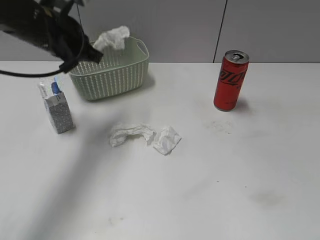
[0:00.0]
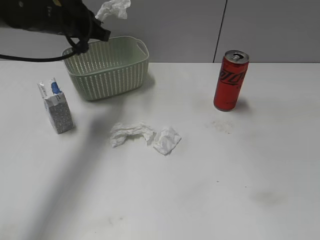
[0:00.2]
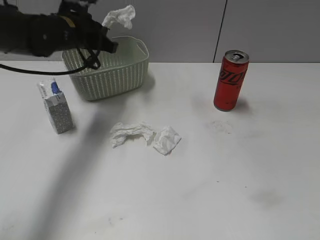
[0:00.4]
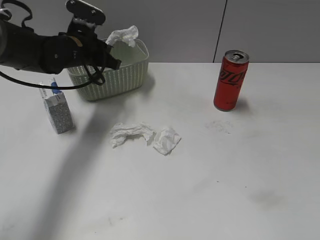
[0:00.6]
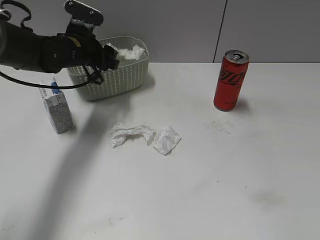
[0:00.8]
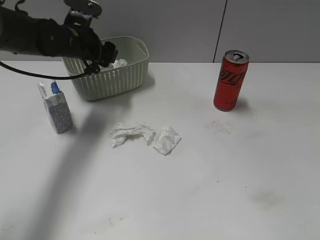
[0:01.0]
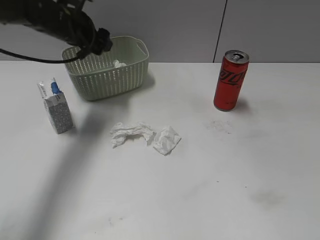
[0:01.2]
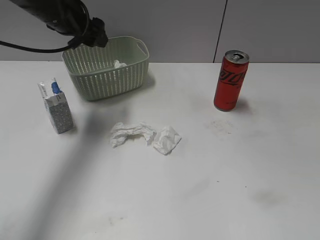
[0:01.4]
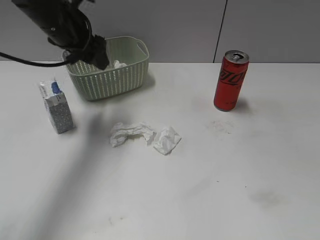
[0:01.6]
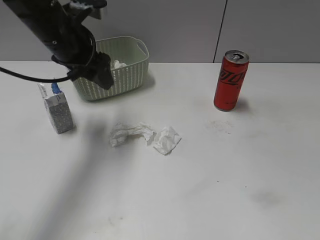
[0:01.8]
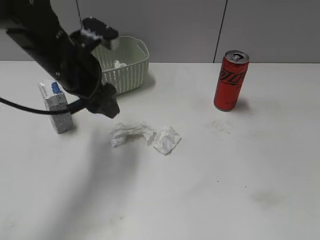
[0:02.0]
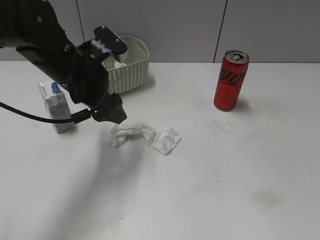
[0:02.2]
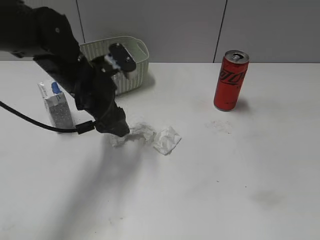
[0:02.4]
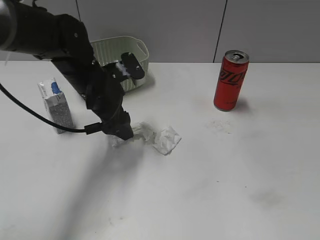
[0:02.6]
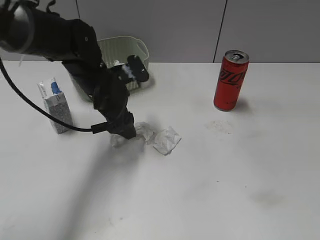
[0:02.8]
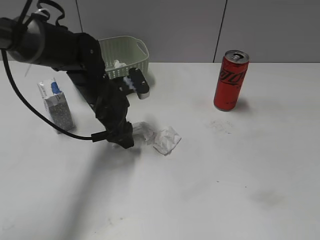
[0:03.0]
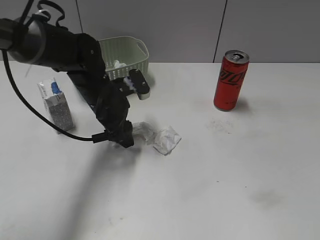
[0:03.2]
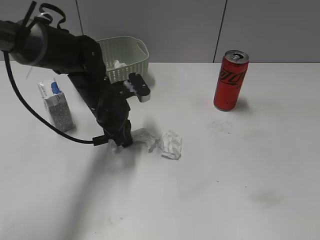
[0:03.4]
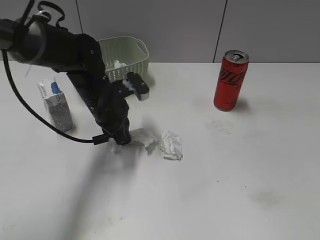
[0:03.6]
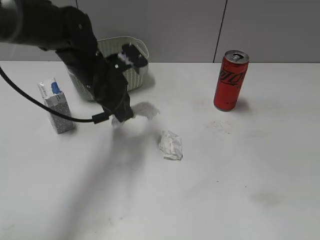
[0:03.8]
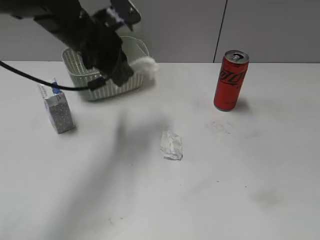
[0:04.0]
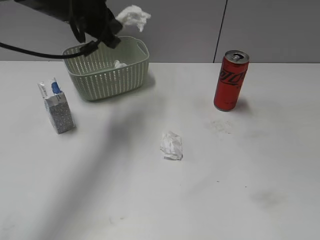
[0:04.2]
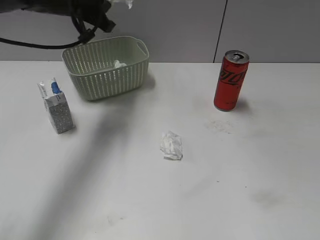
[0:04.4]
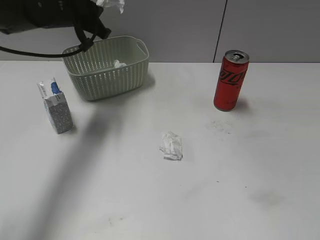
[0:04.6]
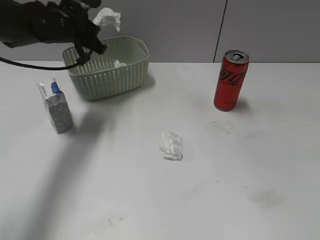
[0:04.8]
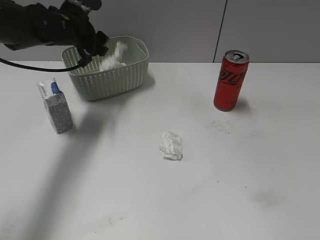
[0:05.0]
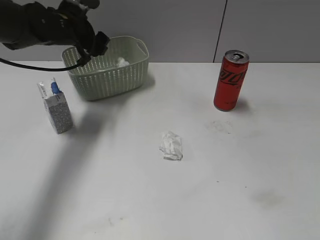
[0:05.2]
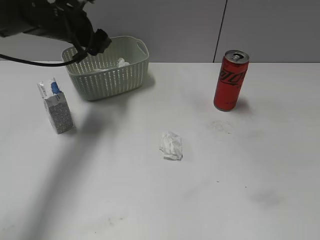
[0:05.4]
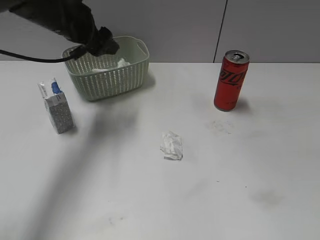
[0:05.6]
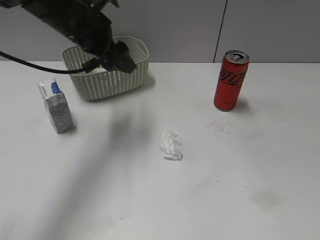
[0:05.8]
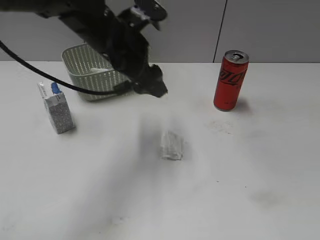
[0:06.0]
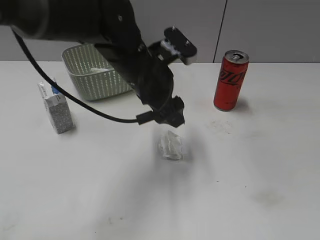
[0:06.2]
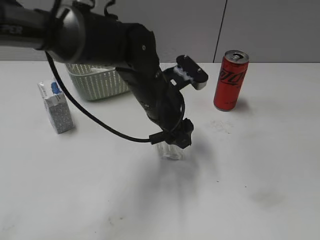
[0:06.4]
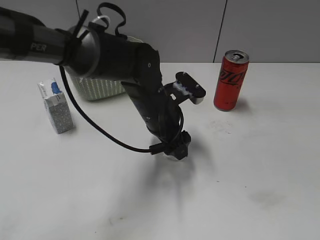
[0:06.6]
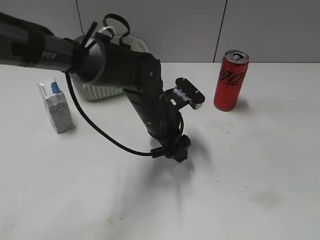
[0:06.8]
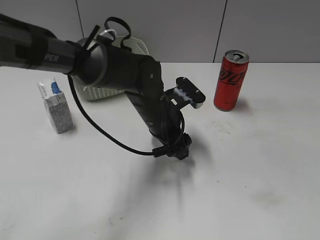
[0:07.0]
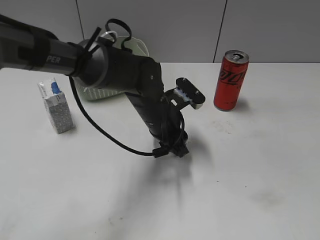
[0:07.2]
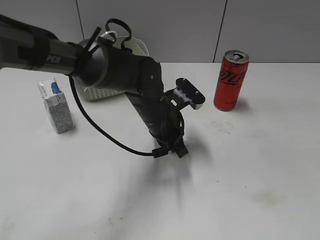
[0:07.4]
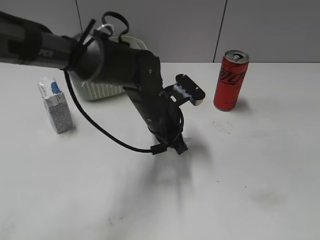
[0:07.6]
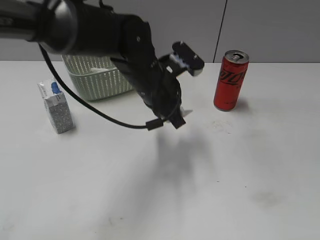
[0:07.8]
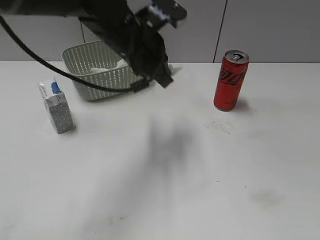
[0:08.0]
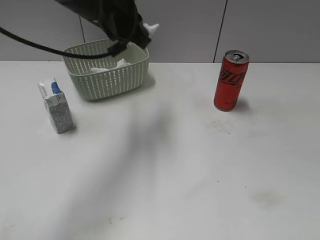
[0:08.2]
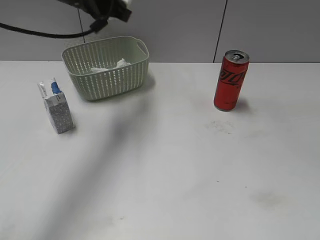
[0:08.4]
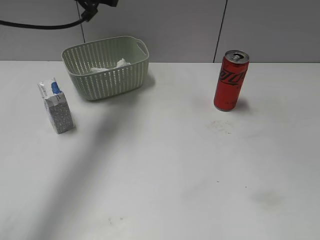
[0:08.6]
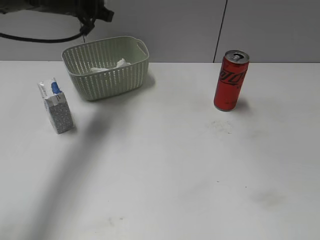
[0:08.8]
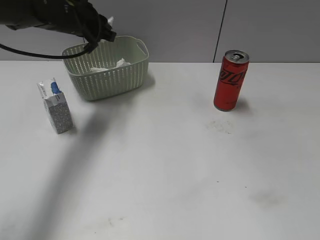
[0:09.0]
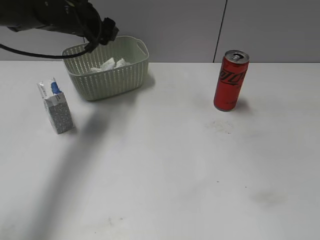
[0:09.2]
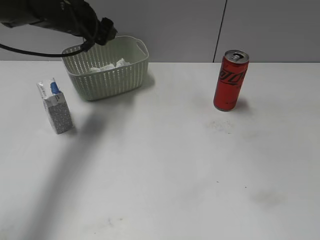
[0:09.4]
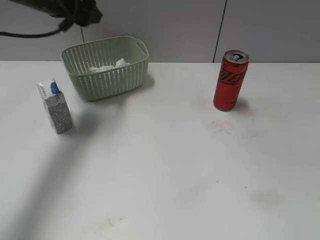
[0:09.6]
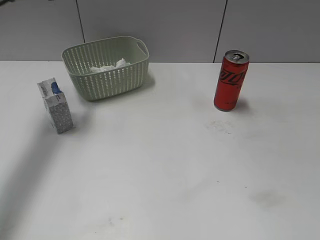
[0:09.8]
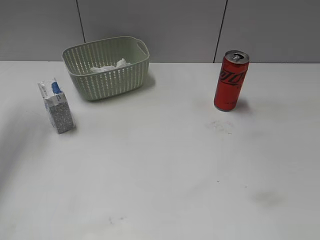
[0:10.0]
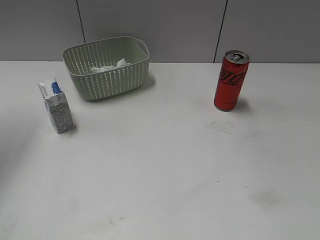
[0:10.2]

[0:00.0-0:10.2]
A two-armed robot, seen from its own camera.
Step, 0:00.0 to 0:01.0: Place the waste paper in the basket with left gripper.
Step, 0:01.2 to 0:03.6: Grasp the waste paper with left gripper.
Step, 0:03.8 to 0:05.2: Place the waste paper in the basket with left gripper.
Step, 0:05.4 to 0:07.6: Grasp the waste paper with left gripper.
Step, 0:07.8 to 0:09.2: Place the waste paper in the basket with left gripper.
0:00.0 to 0:01.4: The left gripper travels forward by approximately 5 cm, and opens.
0:01.4 to 0:03.0: The left gripper shifts some 15 cm downward, to the right and backward.
0:03.0 to 0:04.4: The left gripper goes some 15 cm upward, and closes.
0:04.4 to 0:05.8: The left gripper travels downward and back again, about 10 cm each way, and opens its fingers; the right gripper closes, then opens again.
0:05.8 to 0:07.2: The left gripper is displaced downward, to the right and backward by some 20 cm, and closes up.
0:07.2 to 0:08.8: The left gripper moves to the left, upward and forward, approximately 25 cm, and closes up.
0:08.8 to 0:10.2: The left gripper travels to the left, backward and upward by roughly 25 cm, and opens up.

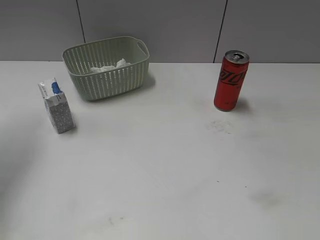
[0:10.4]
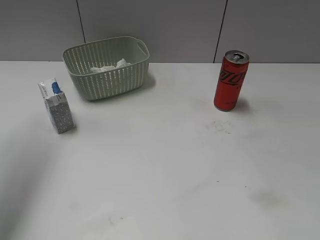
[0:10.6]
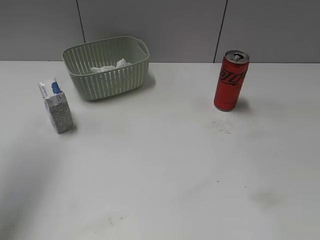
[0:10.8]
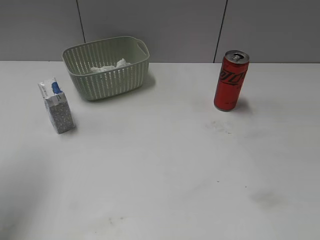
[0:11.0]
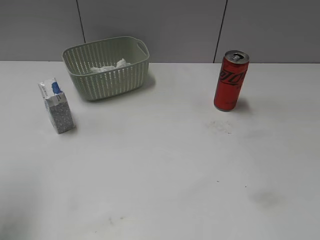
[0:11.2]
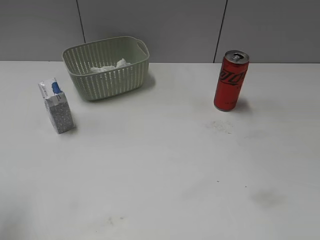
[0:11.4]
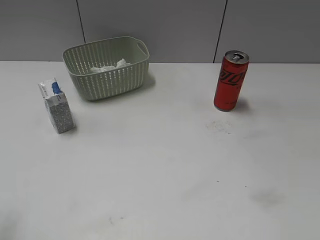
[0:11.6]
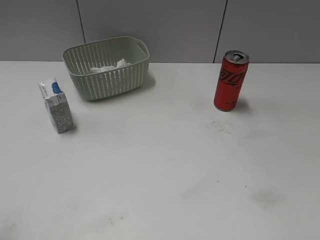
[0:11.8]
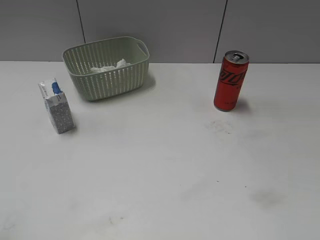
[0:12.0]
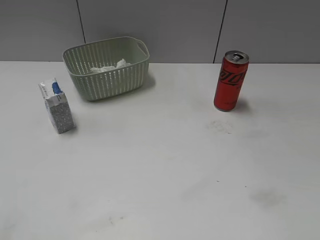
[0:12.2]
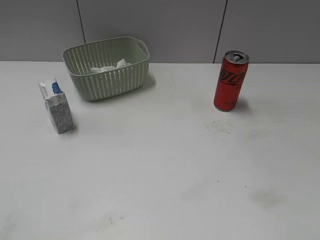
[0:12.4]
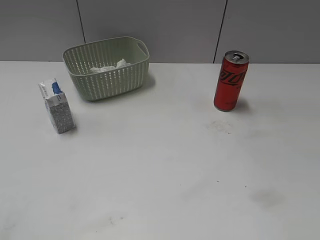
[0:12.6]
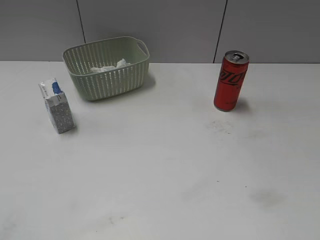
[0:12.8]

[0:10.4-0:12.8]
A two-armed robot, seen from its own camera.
0:10.4 to 0:11.6: The left gripper travels backward and downward by approximately 25 cm.

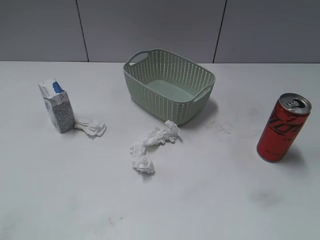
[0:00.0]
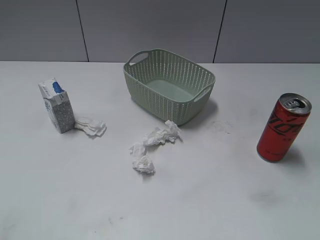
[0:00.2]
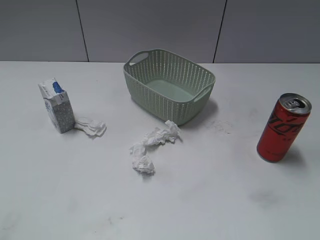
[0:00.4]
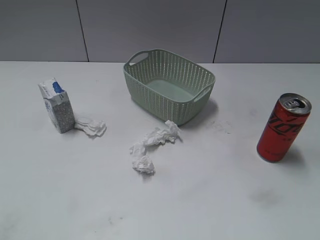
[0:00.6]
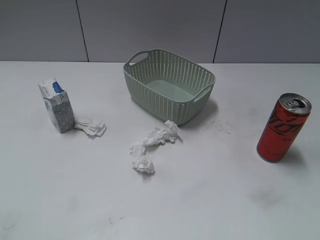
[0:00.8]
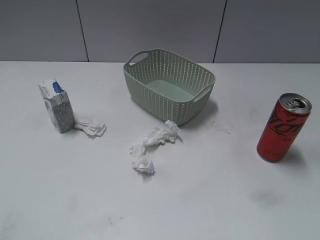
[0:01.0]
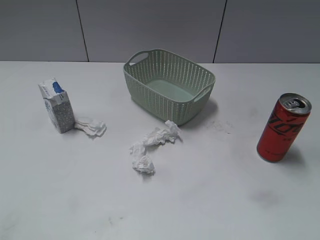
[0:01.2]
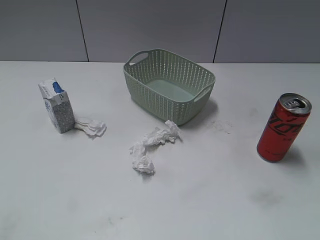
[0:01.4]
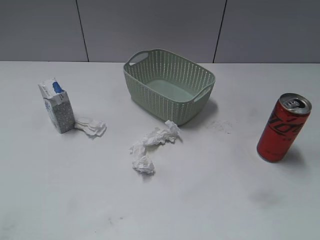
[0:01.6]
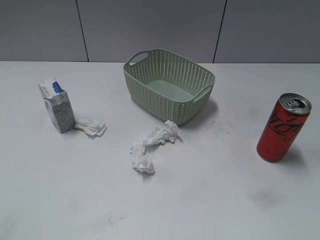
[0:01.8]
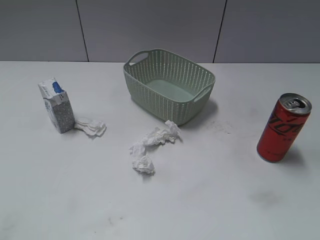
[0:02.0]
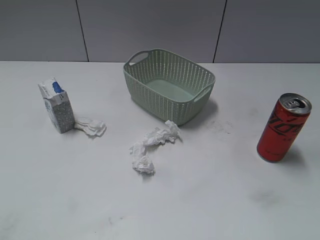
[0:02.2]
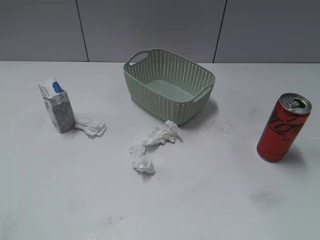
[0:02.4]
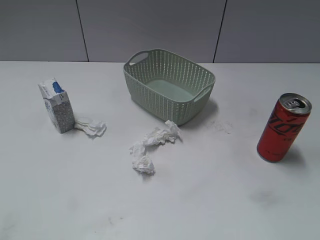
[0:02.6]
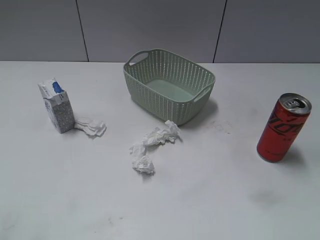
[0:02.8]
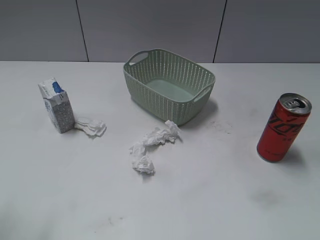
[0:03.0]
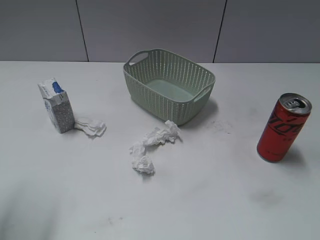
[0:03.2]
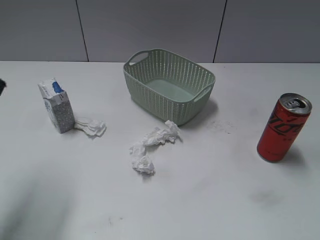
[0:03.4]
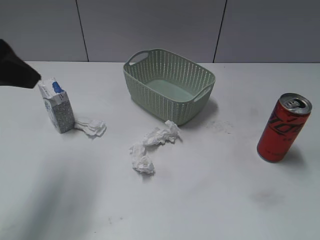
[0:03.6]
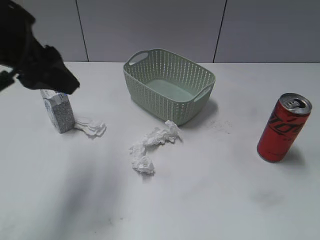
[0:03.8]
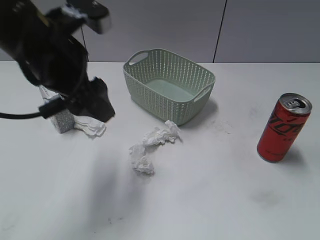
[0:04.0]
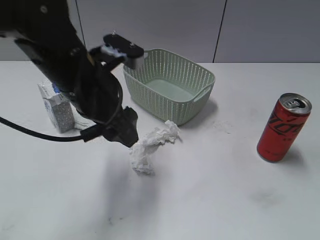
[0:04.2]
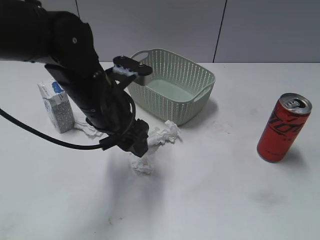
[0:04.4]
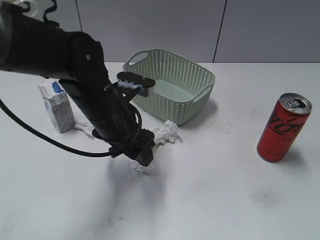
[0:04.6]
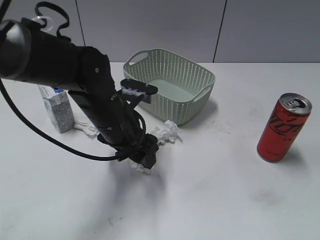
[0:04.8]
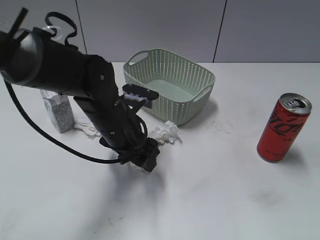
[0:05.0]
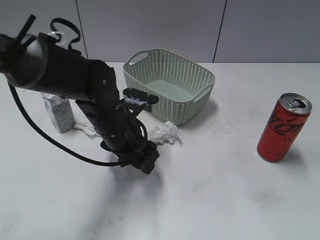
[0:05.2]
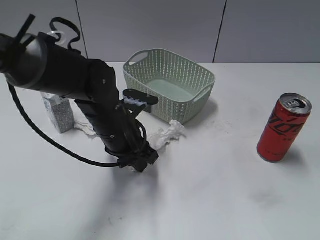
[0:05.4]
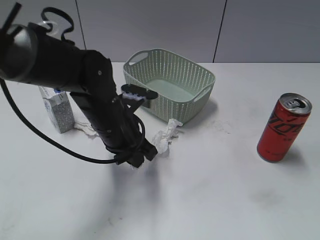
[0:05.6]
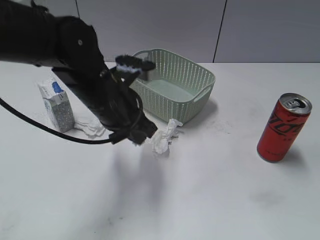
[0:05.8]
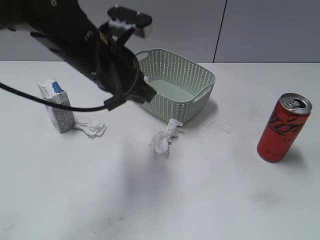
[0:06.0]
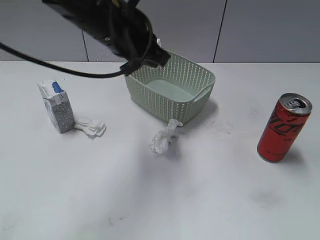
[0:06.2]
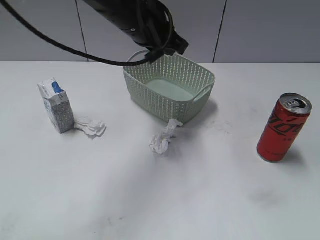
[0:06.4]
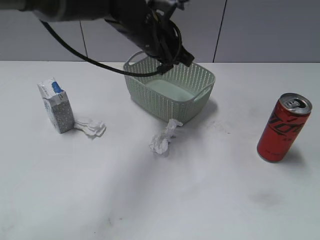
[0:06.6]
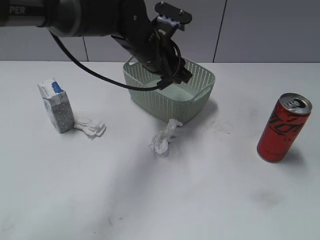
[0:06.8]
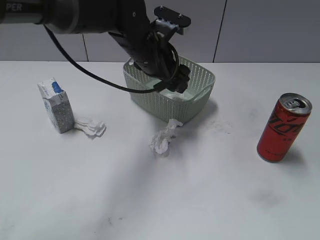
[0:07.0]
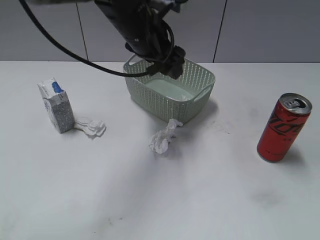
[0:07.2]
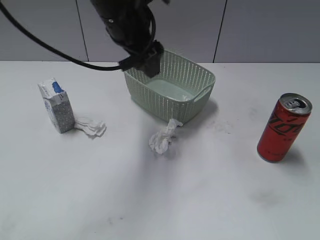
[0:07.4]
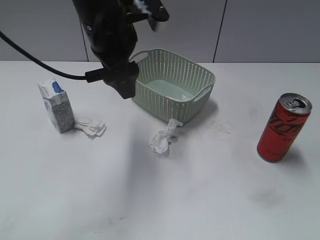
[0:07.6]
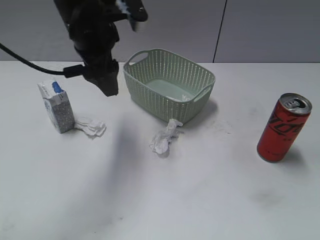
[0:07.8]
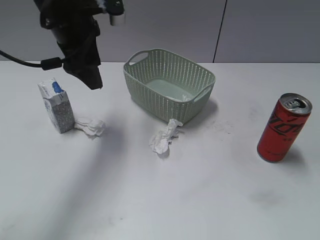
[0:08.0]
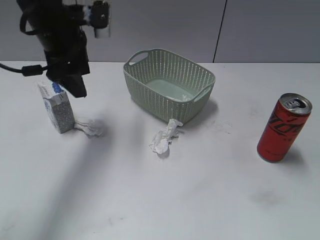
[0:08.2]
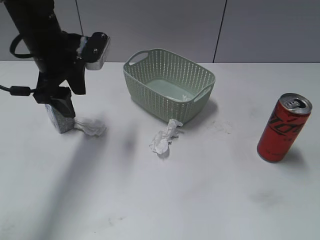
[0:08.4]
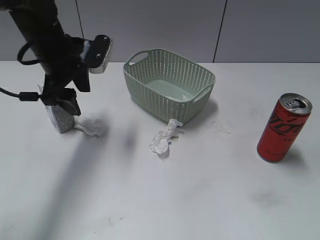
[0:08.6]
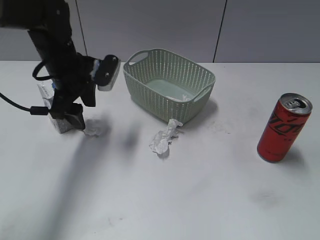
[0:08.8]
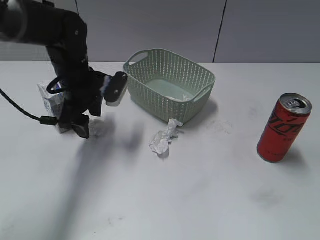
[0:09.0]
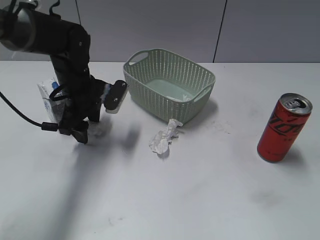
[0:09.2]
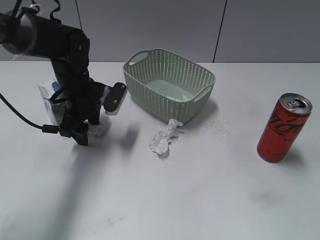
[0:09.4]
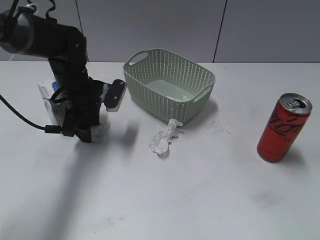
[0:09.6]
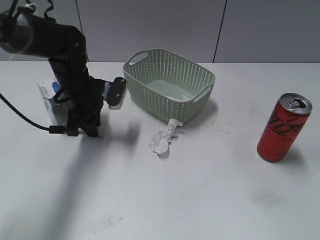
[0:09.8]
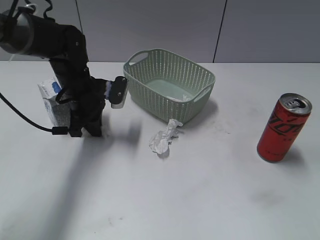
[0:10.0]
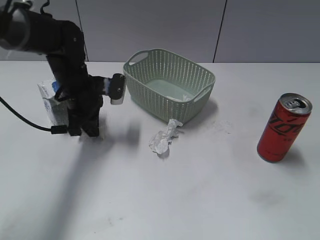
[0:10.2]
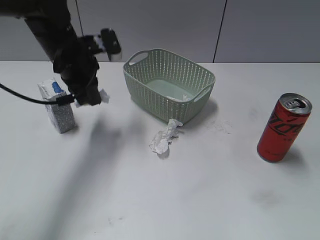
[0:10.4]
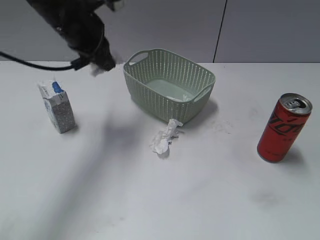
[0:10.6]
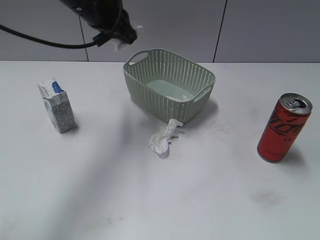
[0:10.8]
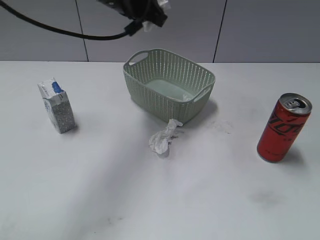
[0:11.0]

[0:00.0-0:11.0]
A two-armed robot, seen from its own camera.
Step, 0:03.4 to 0:05.6: Grasp the waste paper with left gripper.
Step, 0:05.8 to 0:07.2: Place the waste paper in the basket with left gripper.
Step, 0:07.4 to 0:10.0: Grasp the waste paper with left gripper.
0:01.6 to 0:03.2: The left gripper shifts some 15 cm forward, and opens up.
0:03.2 to 0:04.8: The left gripper is displaced to the right, downward and forward by about 30 cm.
0:04.8 to 0:06.2: The left gripper is displaced upward by roughly 15 cm, and closes up.
0:06.2 to 0:07.8: The left gripper travels downward and back again, approximately 5 cm each way, and opens up.
0:07.8 to 0:09.4: The left gripper is displaced downward by roughly 15 cm.
0:09.4 to 0:11.0: The left gripper shifts some 20 cm upward and to the right, and closes.
